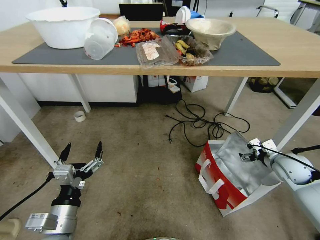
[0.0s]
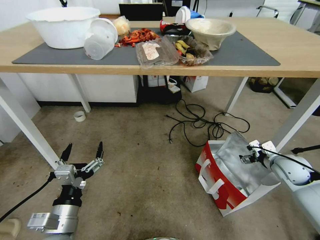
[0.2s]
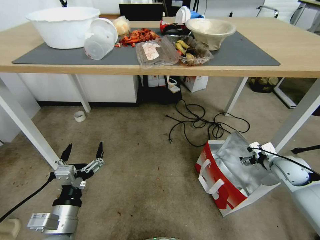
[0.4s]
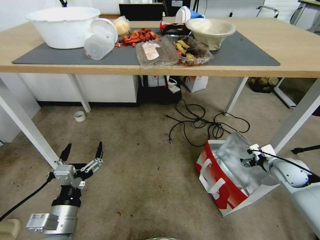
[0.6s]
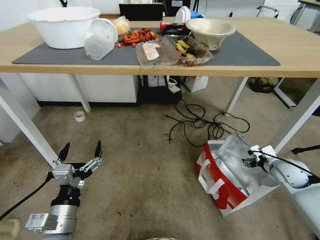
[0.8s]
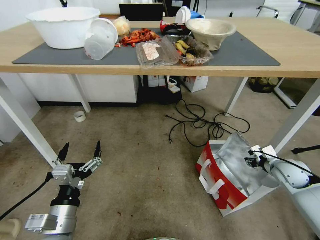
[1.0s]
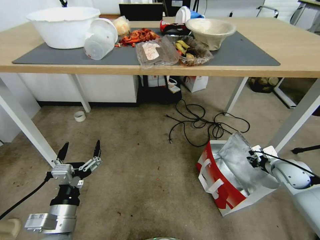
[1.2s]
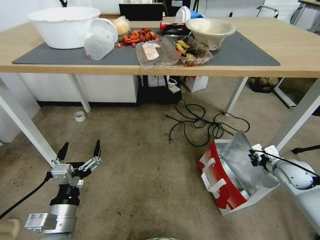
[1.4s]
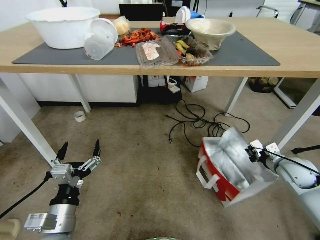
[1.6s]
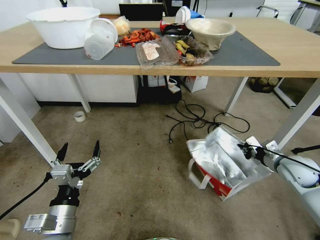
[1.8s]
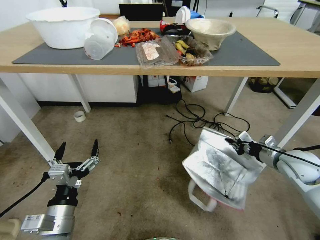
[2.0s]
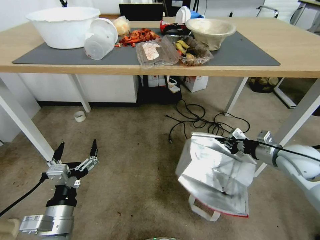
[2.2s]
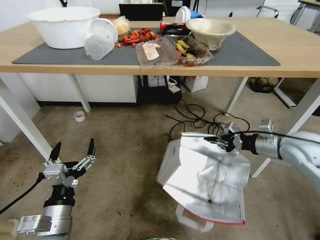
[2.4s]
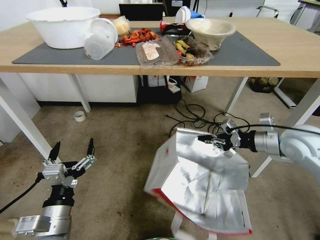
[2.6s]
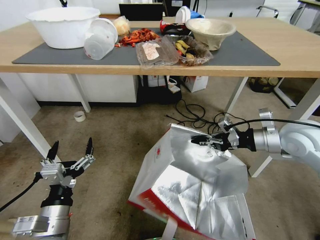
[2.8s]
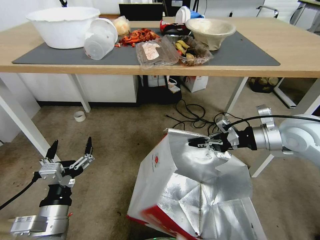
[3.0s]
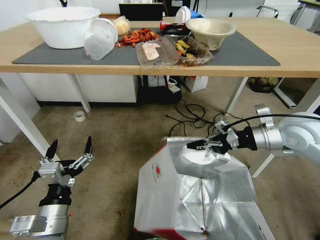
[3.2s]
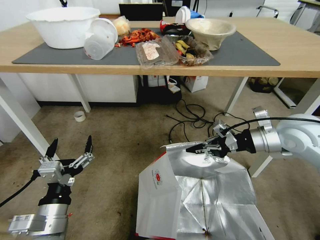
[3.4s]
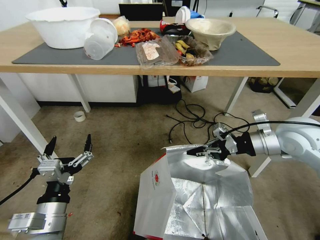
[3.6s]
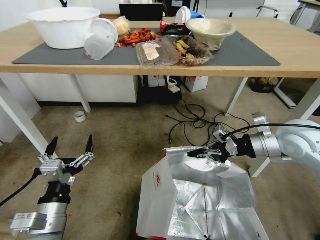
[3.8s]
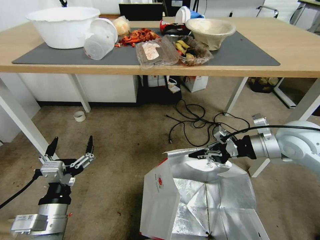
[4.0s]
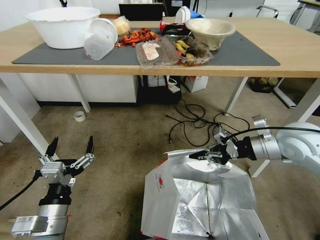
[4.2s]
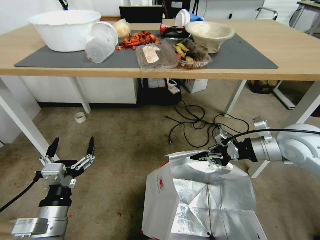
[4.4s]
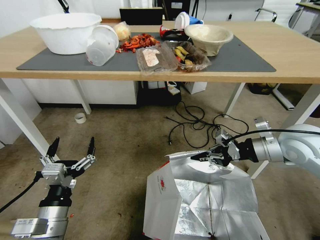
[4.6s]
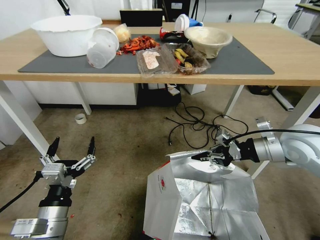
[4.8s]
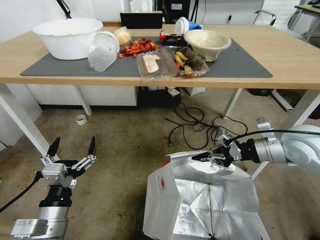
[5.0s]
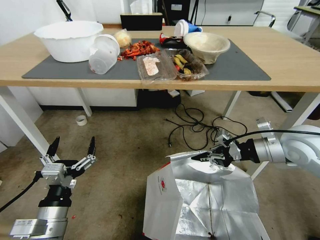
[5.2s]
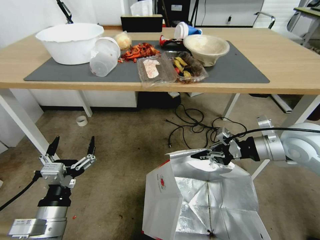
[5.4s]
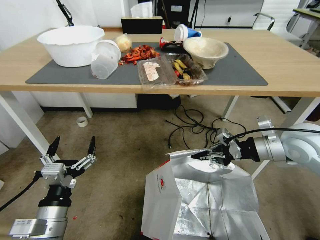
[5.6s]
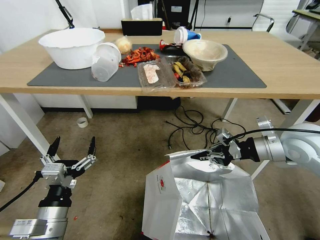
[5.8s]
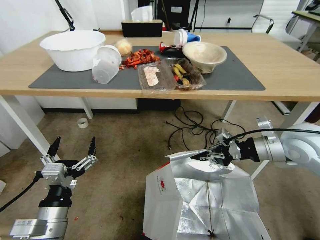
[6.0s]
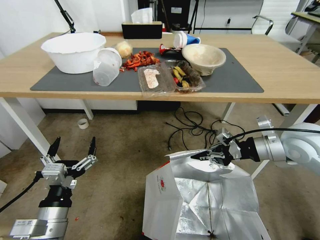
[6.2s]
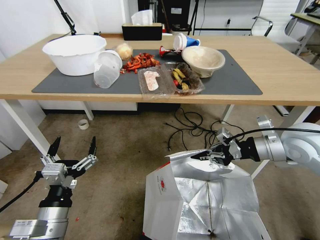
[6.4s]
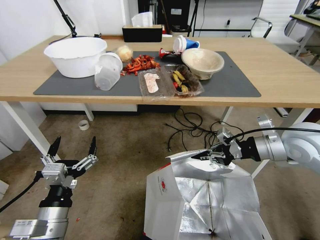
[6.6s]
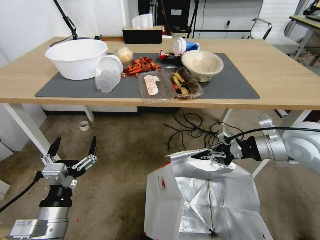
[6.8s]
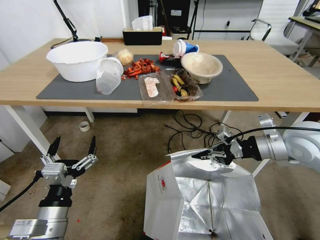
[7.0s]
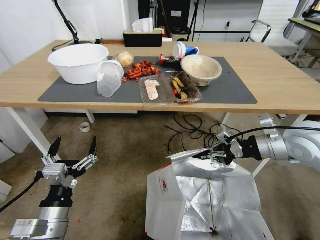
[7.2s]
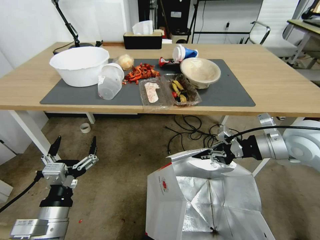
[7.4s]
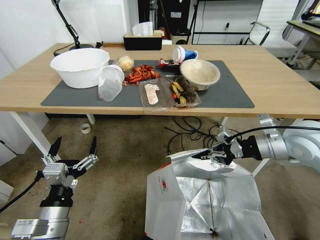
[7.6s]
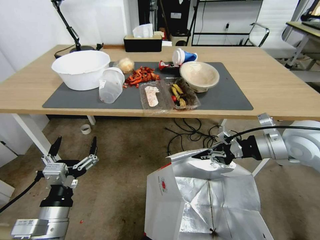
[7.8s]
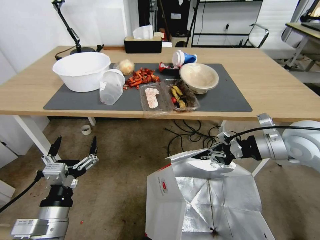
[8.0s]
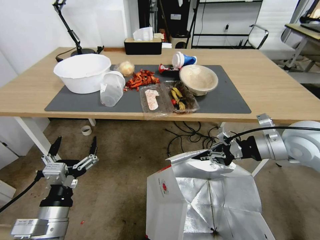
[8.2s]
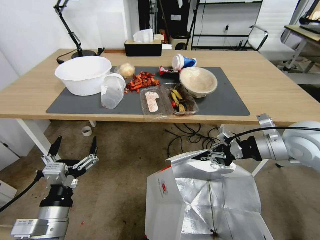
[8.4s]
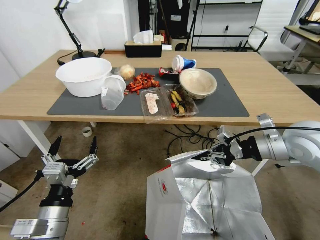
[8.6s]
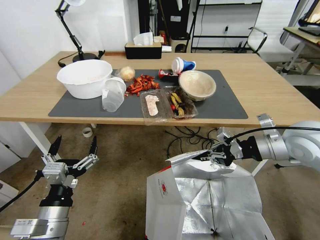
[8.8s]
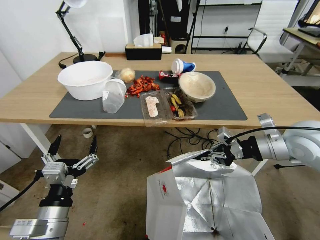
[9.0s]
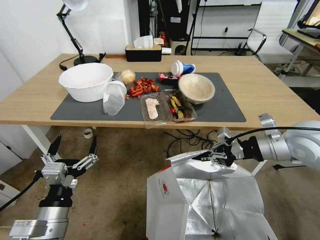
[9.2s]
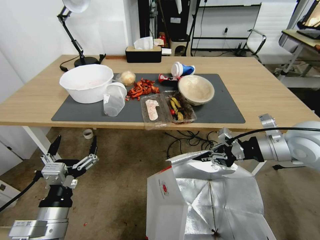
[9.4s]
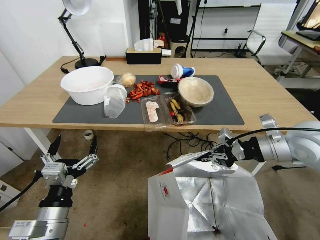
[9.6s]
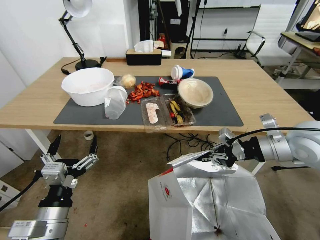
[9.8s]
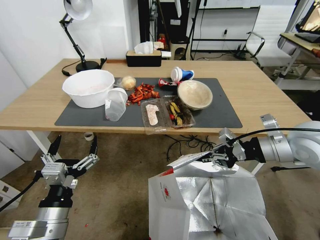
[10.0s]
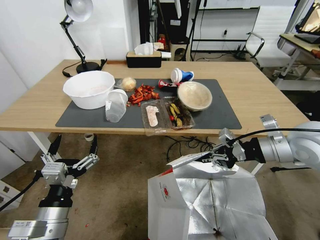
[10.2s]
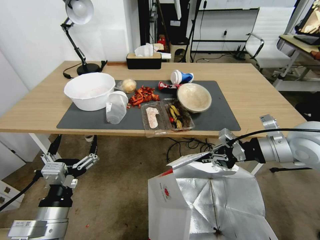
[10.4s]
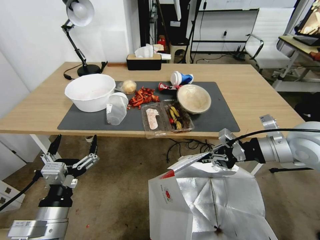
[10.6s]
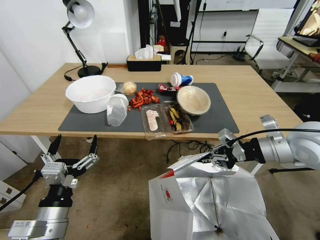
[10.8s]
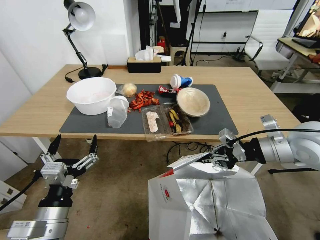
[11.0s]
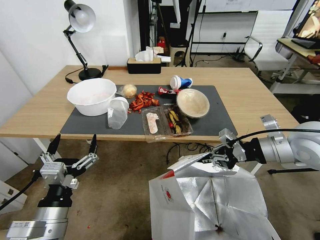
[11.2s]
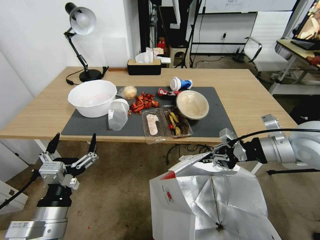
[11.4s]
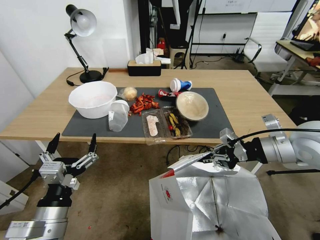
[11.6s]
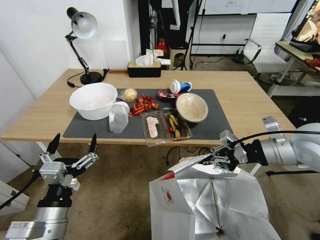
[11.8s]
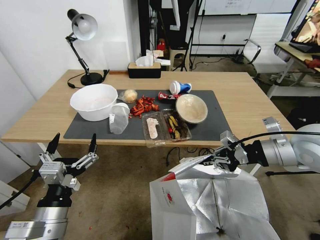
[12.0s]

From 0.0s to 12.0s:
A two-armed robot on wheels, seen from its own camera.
Task of the whole recording: Pick up the food delivery bag from the floor and place it on the table.
From 0.0s to 1.6s: The right gripper closes up.
From 1.6s to 3.0s: The right gripper heads upward and to the left, covering about 20 cm.

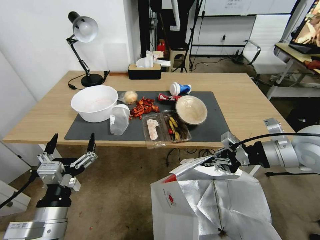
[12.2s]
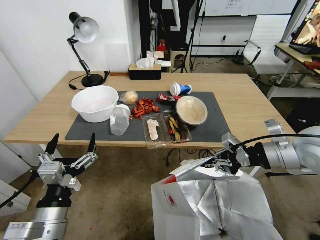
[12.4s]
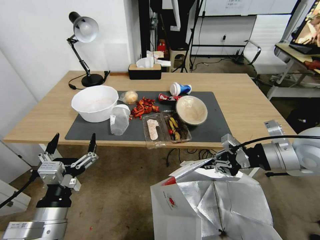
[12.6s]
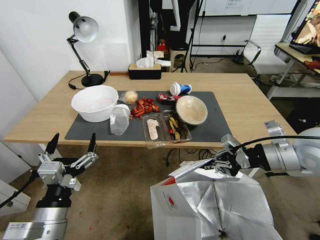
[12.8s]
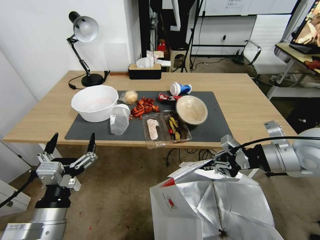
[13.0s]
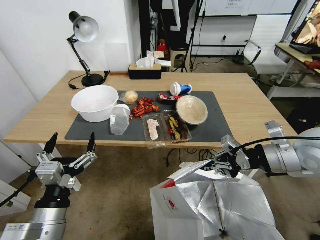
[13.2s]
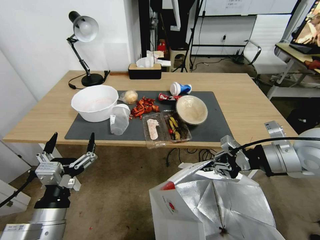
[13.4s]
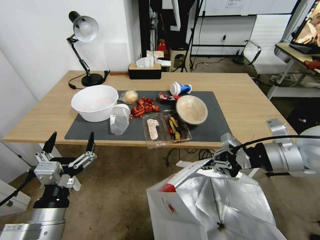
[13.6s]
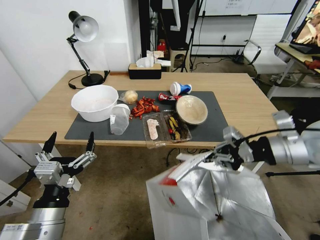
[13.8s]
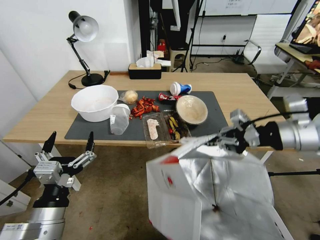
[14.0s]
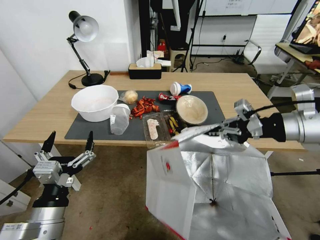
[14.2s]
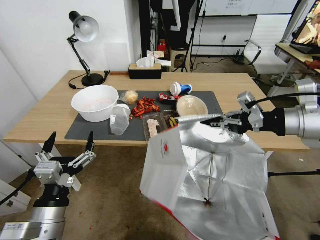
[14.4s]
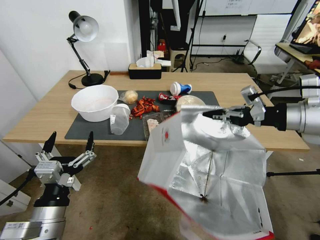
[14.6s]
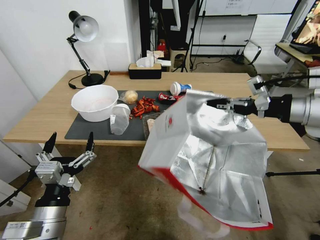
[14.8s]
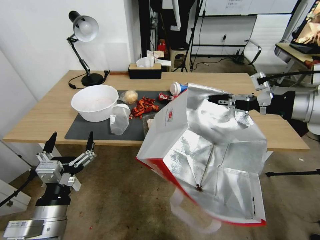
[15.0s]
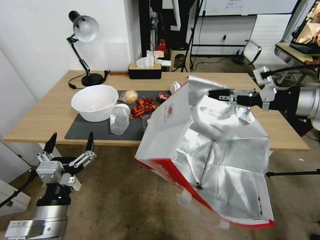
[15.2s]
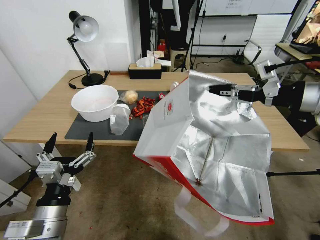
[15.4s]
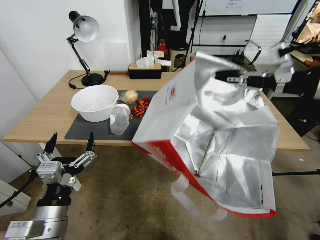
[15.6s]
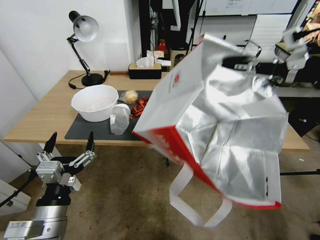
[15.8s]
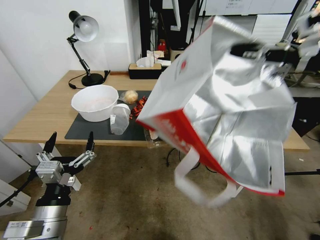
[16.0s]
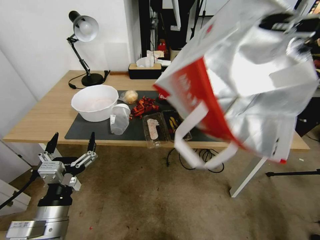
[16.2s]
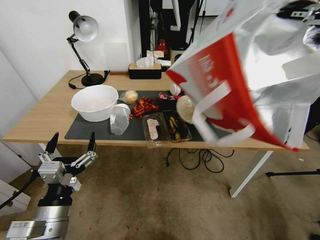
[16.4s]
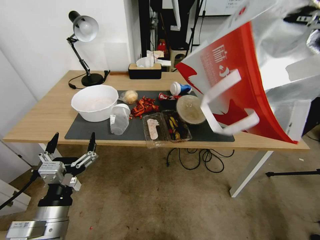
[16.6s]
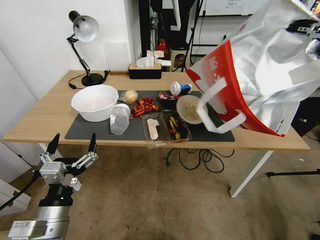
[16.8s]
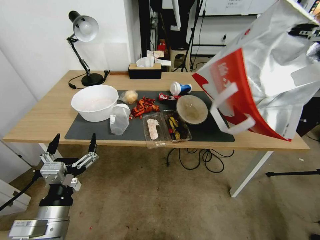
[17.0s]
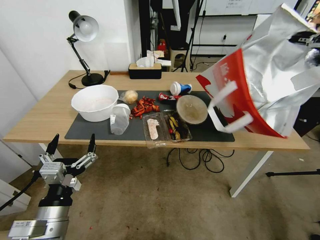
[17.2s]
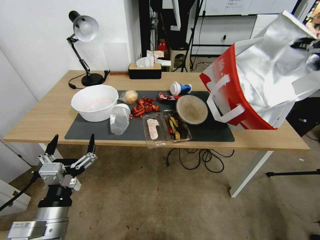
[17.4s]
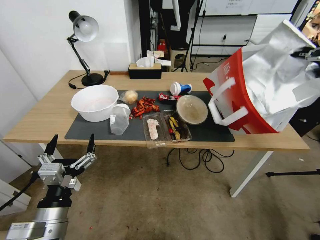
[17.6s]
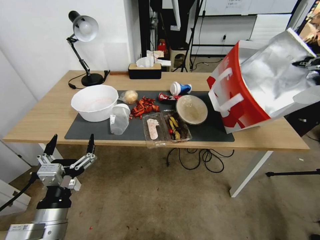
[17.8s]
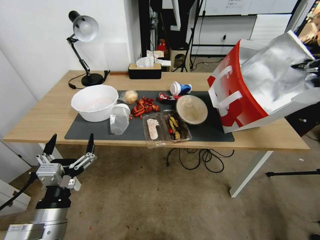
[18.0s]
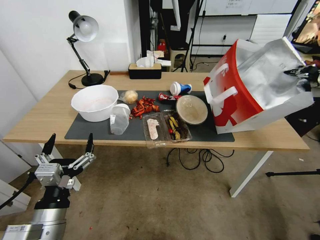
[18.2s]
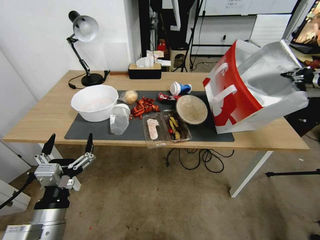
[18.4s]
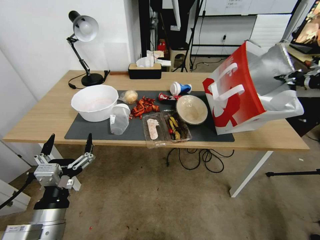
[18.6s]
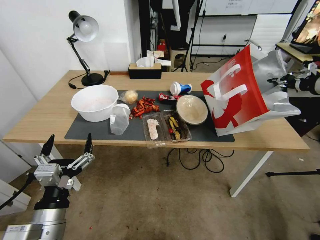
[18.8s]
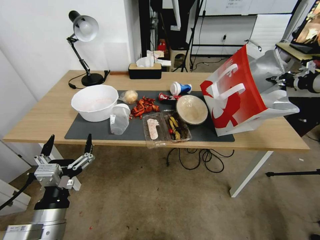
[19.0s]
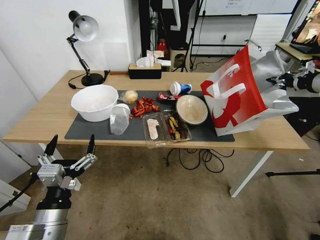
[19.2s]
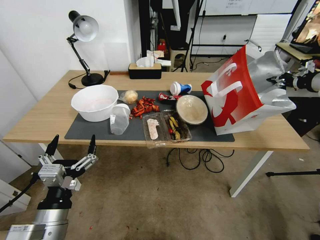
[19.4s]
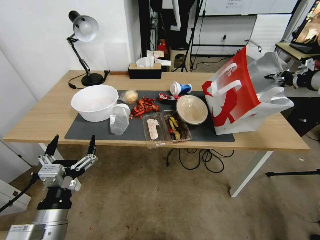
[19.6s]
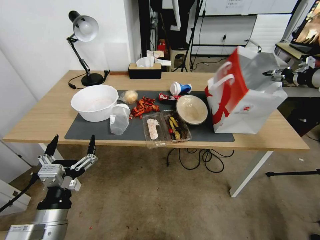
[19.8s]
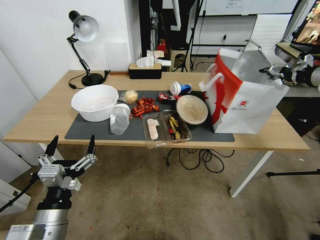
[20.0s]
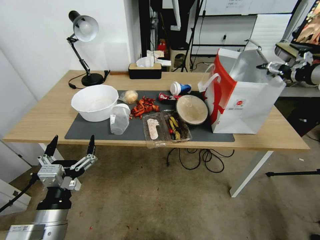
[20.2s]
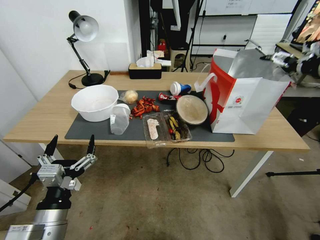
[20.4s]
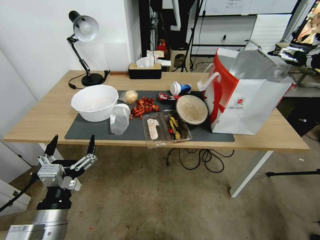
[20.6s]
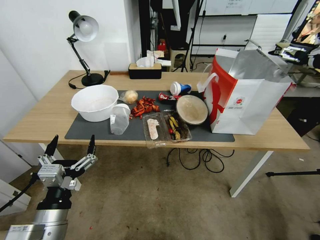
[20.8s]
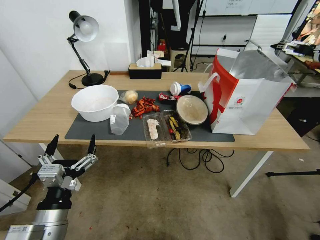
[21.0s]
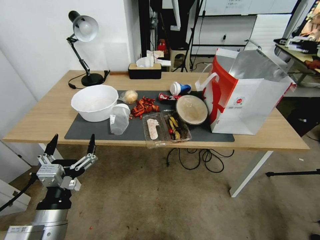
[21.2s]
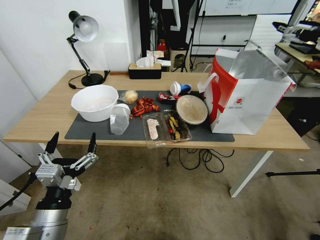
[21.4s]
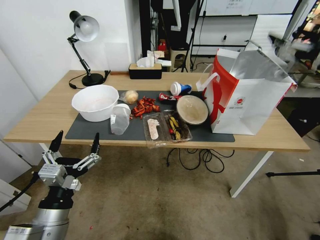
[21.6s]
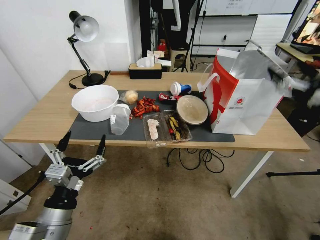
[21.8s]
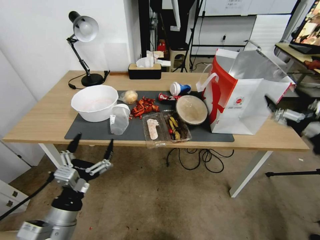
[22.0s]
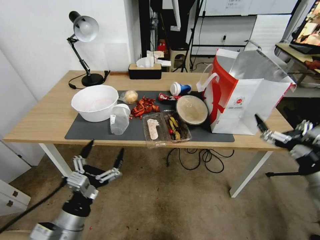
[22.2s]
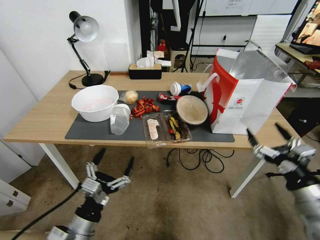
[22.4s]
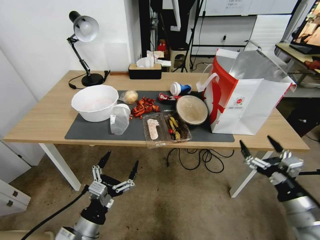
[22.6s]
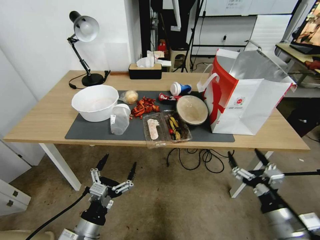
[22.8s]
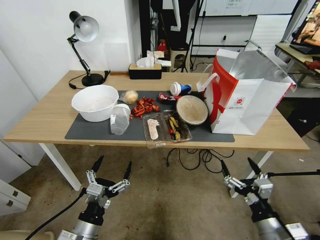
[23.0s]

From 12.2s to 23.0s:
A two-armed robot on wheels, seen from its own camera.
Task of the whole recording: Pick up the food delivery bag from the floor and place it on the table.
From 12.2s to 13.8s: There are only small adjustments of the grippers.
From 13.8s to 15.2s: The right gripper goes about 10 cm upward.
From 15.2s to 16.8s: The right gripper goes roughly 15 cm to the right and upward.
From 16.8s to 18.4s: The right gripper heads downward and forward, covering about 10 cm.
From 18.4s to 20.0s: The right gripper opens up.
From 20.0s to 21.4s: The right gripper is displaced backward, to the left and upward by approximately 15 cm, and opens.
From 21.4s to 23.0s: The right gripper goes roughly 40 cm downward and backward, while the left gripper travels downward by about 10 cm.
